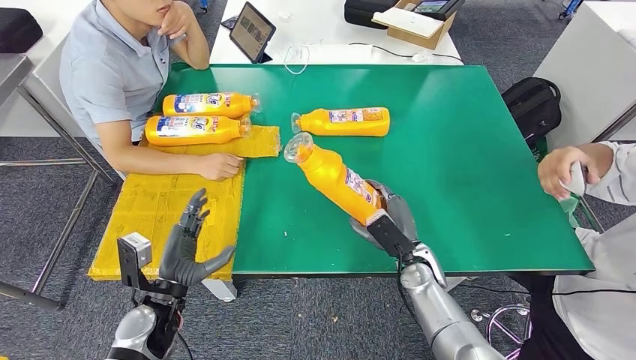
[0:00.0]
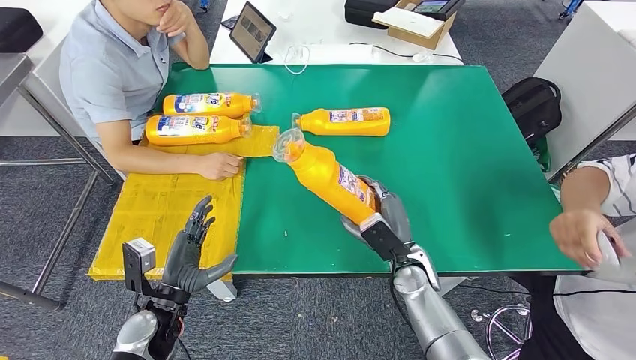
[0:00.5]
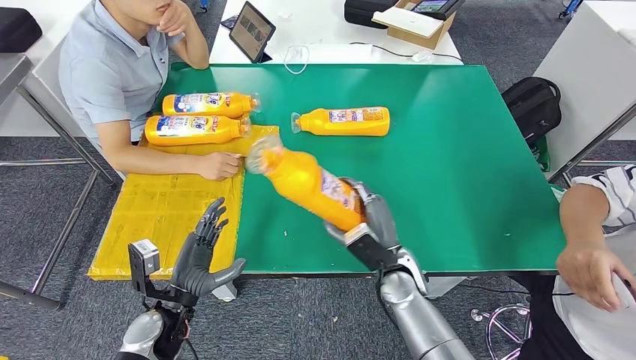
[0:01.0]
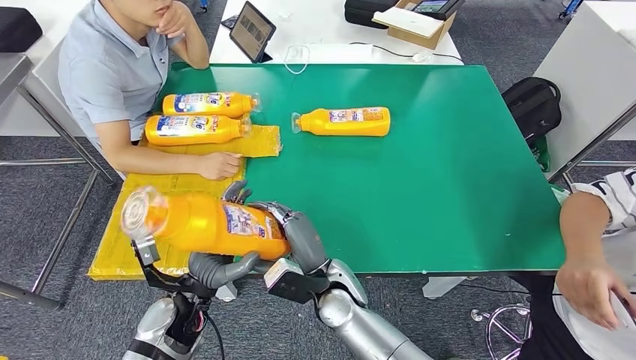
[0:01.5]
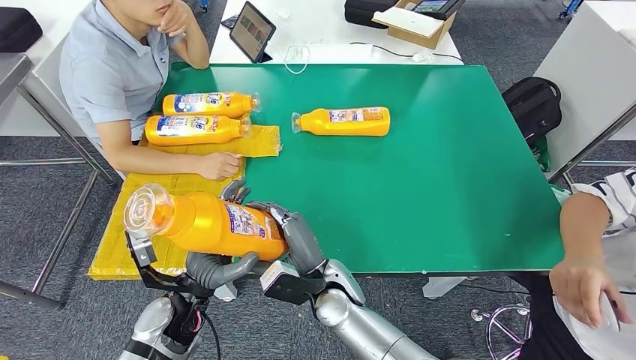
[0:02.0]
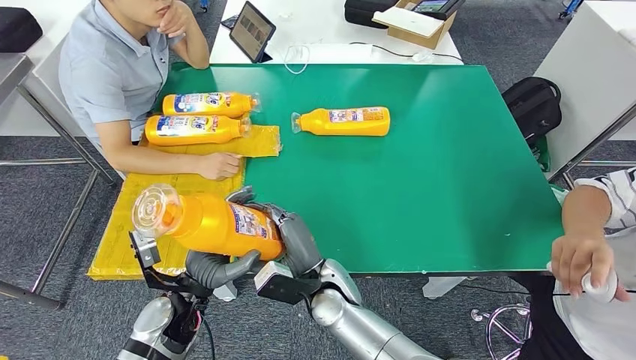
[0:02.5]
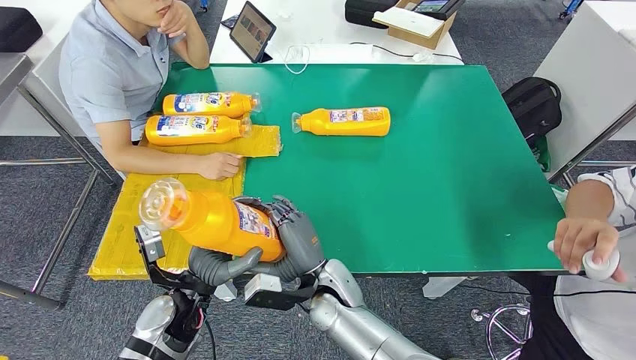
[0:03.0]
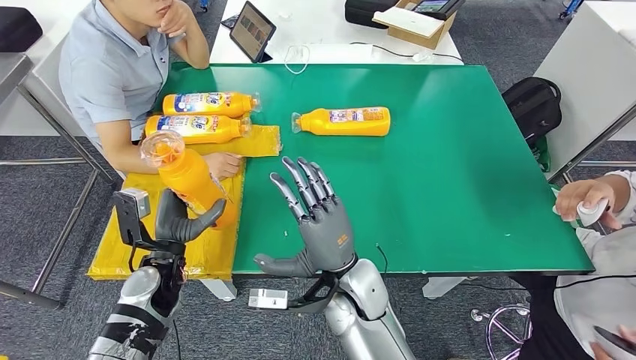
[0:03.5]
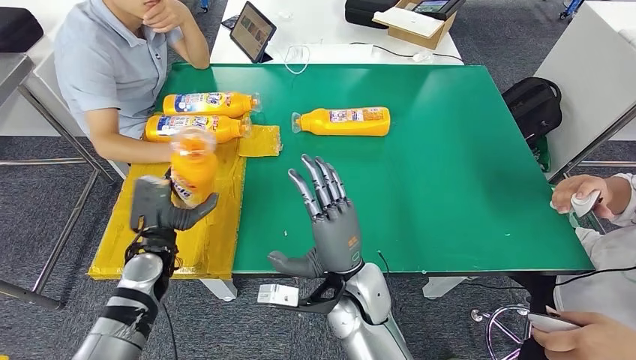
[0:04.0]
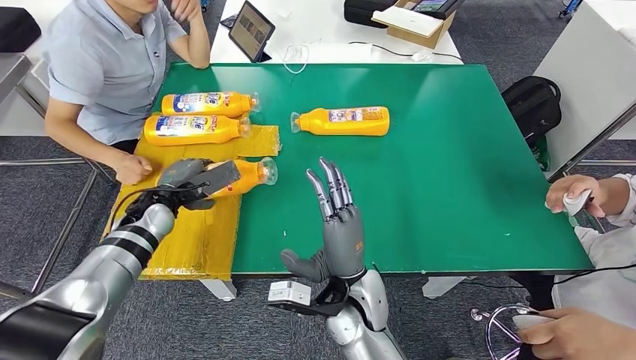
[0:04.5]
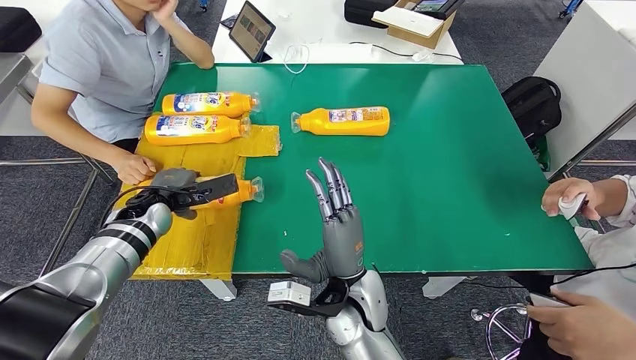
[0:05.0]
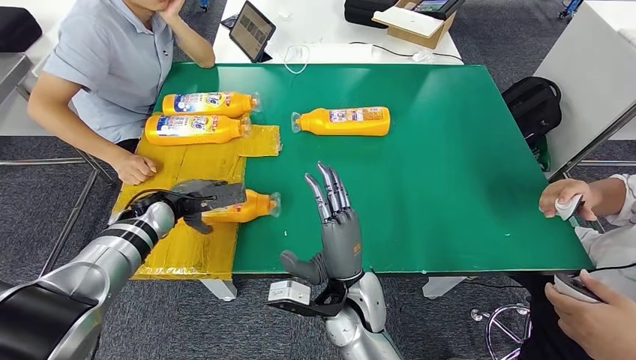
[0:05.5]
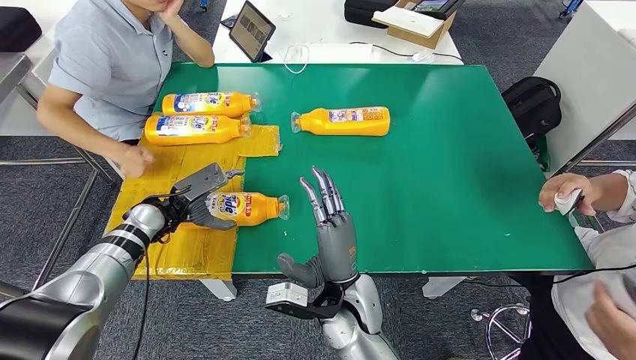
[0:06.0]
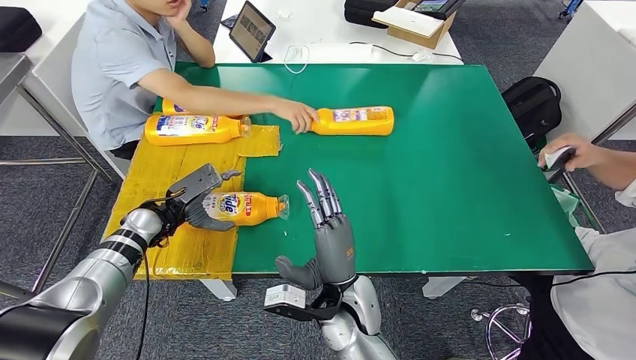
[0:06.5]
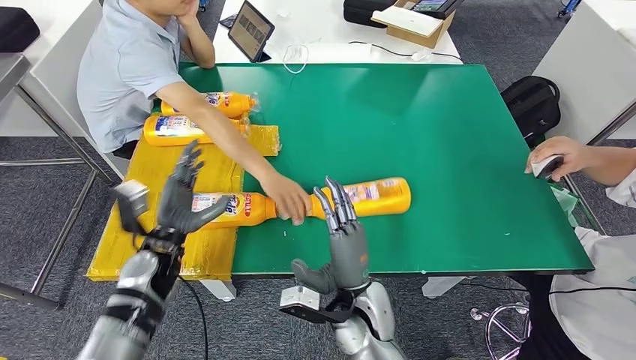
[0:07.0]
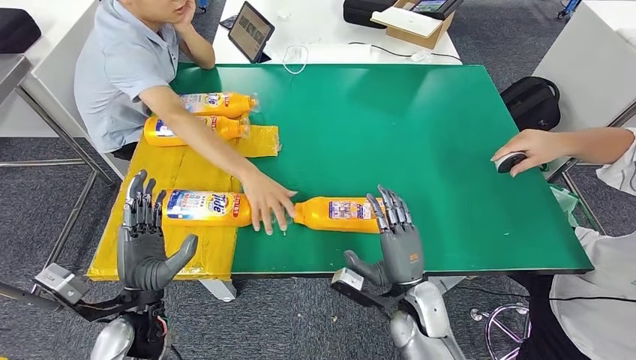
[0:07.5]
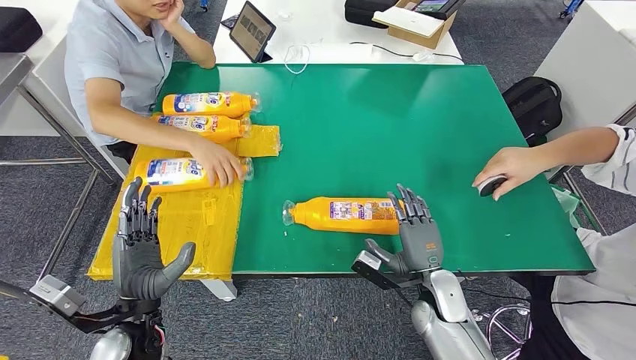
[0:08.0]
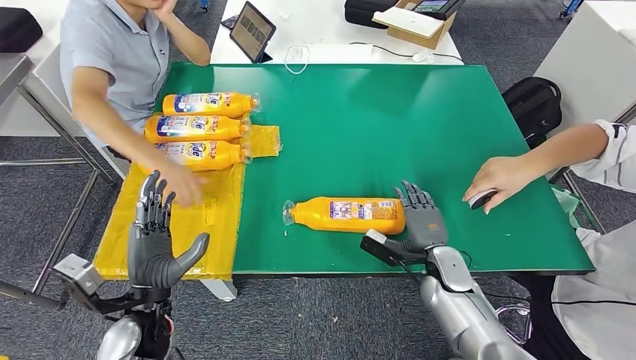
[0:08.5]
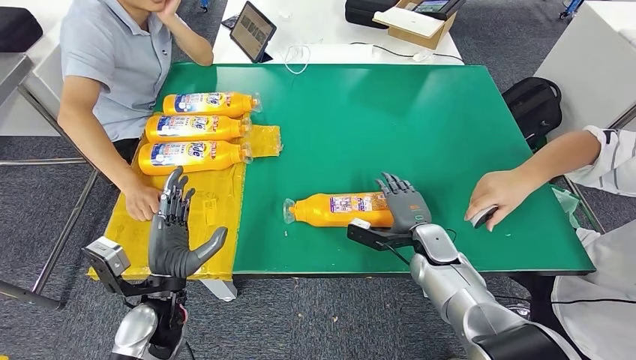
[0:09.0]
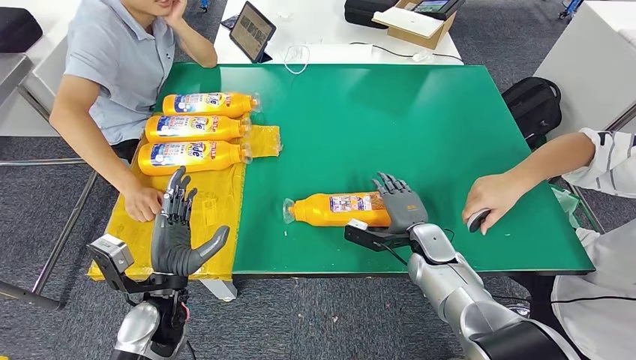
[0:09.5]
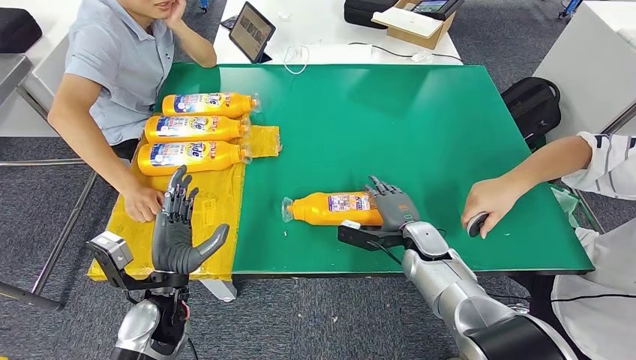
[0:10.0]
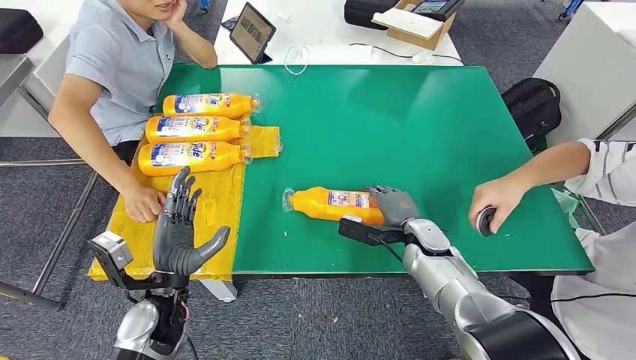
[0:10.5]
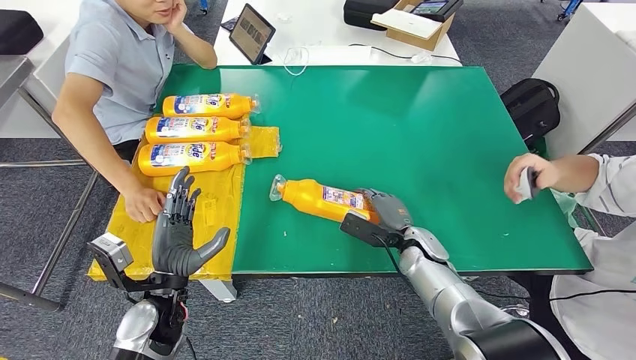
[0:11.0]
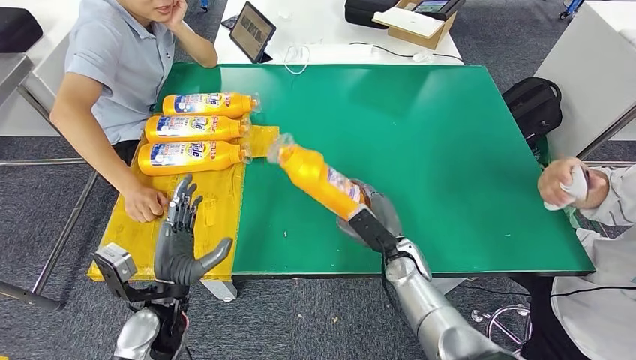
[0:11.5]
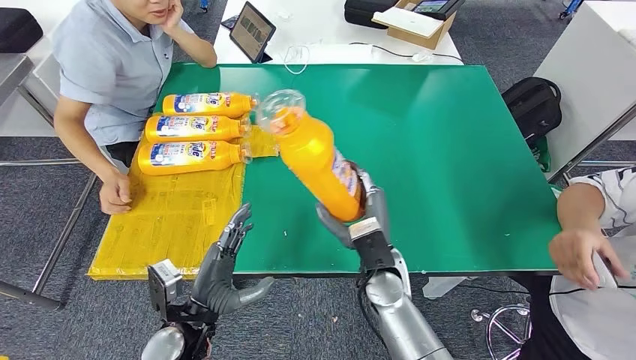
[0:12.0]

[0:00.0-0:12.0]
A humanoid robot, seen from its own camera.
Step, 0:00.0 to 0:02.5: Pick up the bottle from the table.
Step, 0:03.0 to 0:07.0: Flip the bottle to face forward.

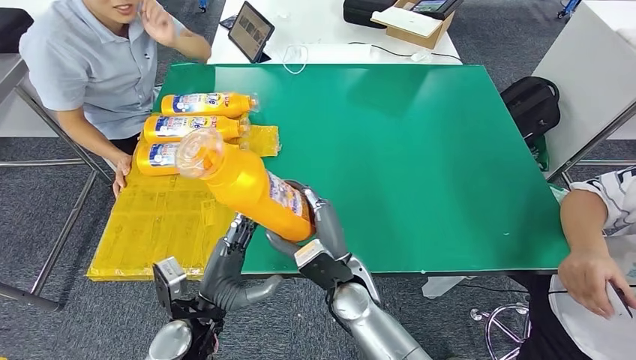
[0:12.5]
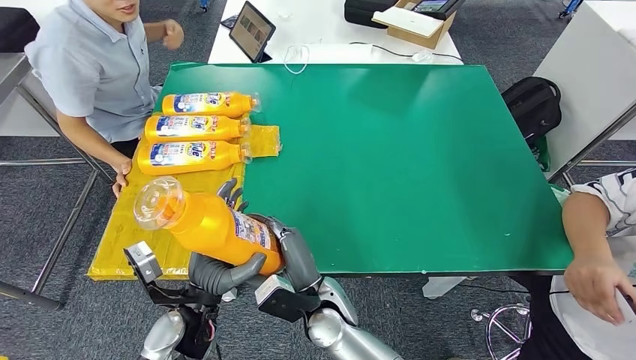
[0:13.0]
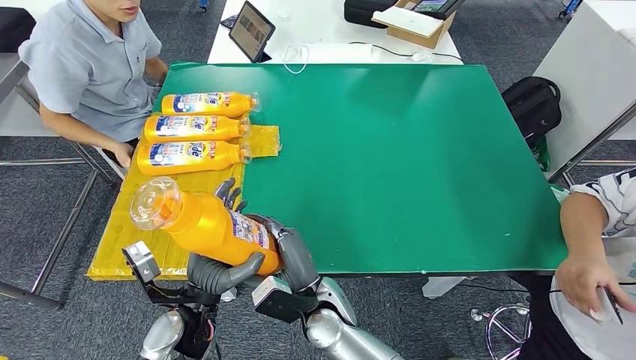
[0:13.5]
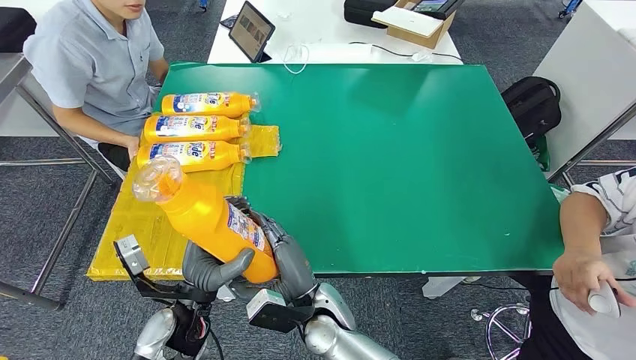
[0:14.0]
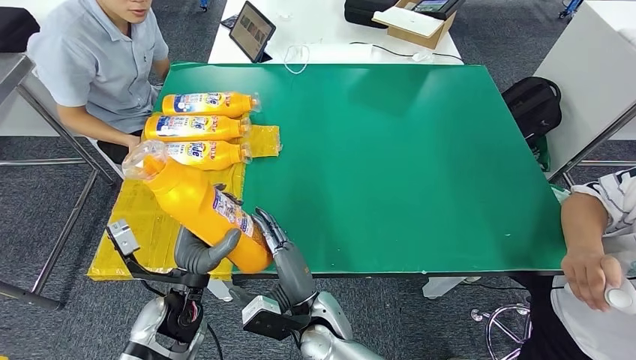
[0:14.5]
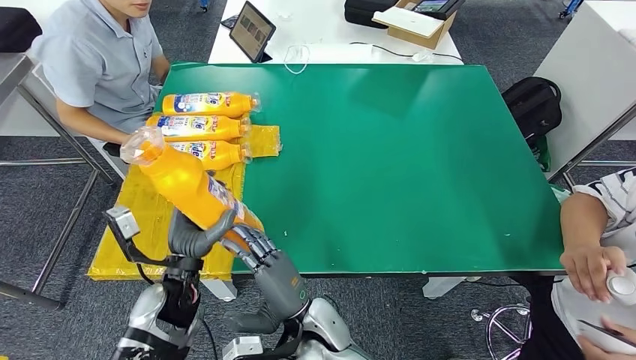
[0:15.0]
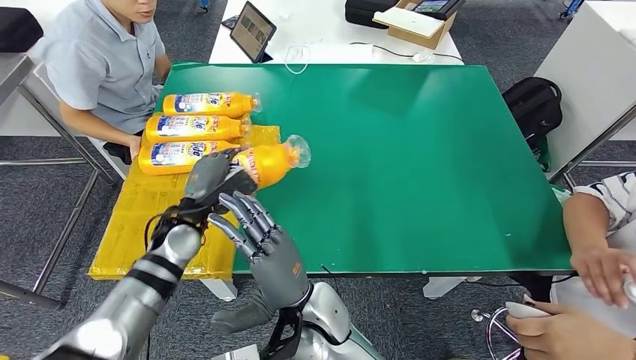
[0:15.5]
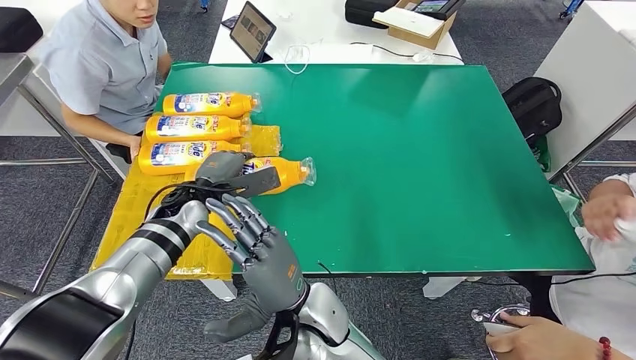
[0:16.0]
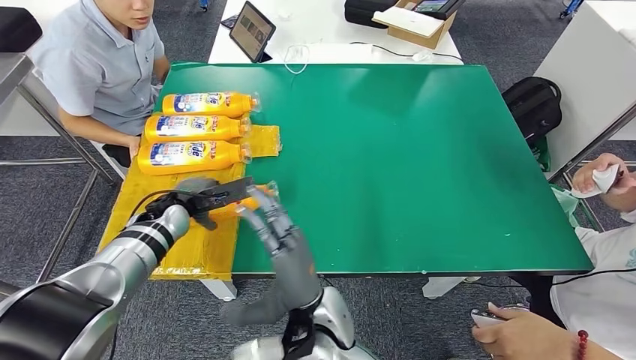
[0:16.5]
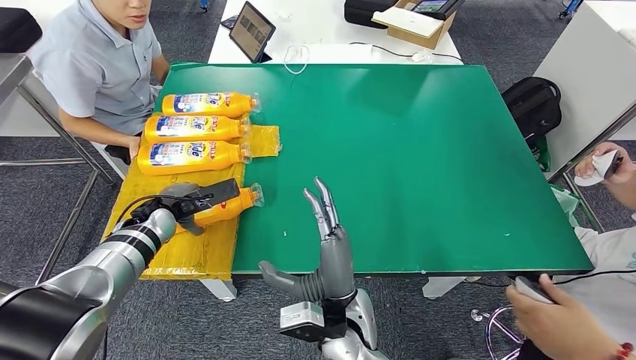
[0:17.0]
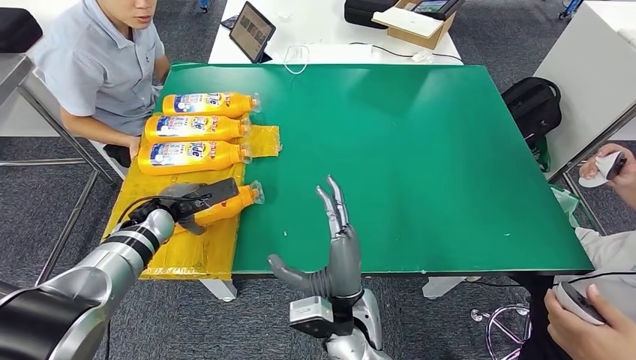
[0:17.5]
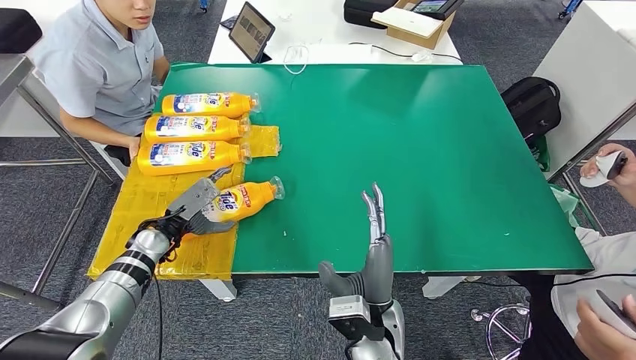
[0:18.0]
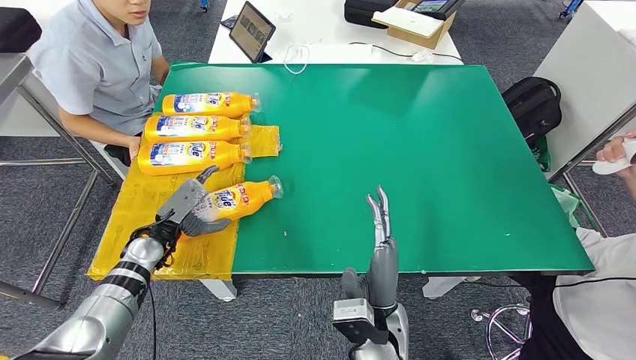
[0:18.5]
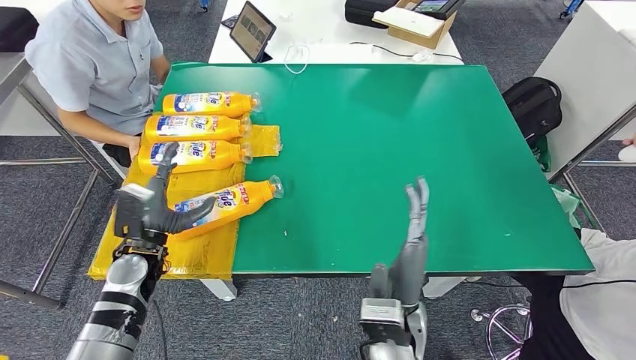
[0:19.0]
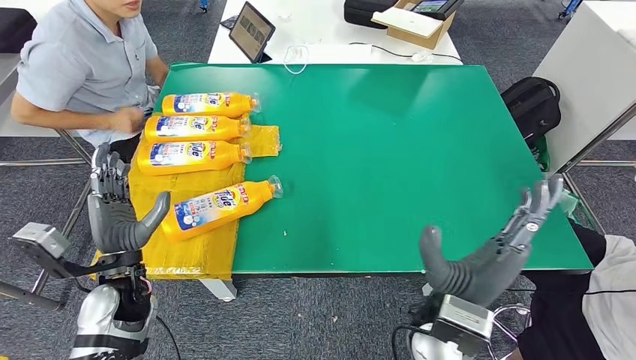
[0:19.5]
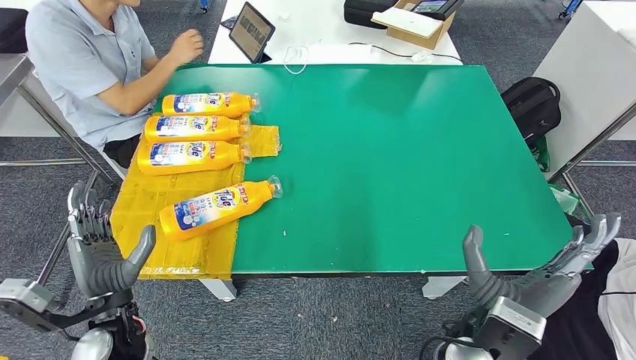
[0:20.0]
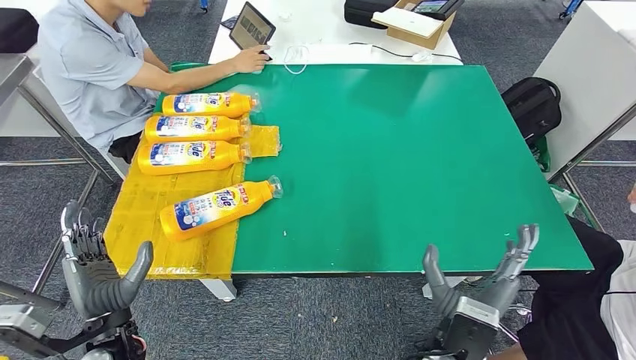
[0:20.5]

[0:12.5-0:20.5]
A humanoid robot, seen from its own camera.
Step, 0:14.5 to 0:20.5: Flip the bottle to face forward.
0:16.5 to 0:18.5: The left hand shifts approximately 5 cm downward and backward. The right hand is displaced to the right by some 10 cm.
